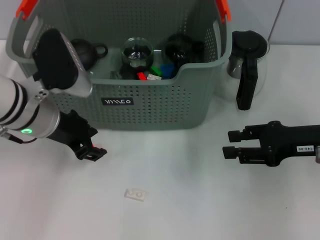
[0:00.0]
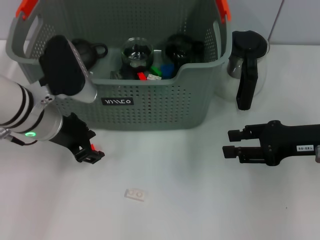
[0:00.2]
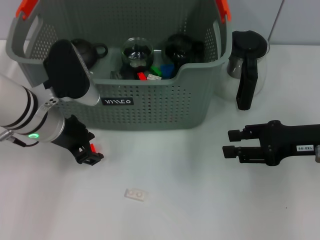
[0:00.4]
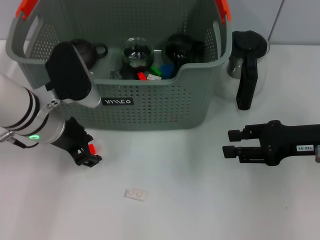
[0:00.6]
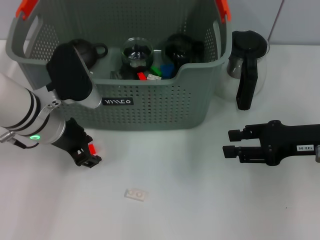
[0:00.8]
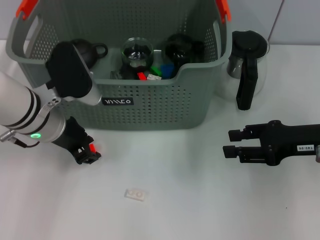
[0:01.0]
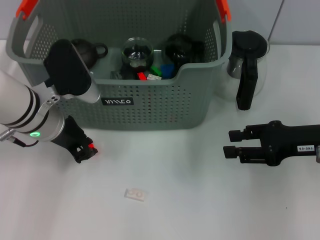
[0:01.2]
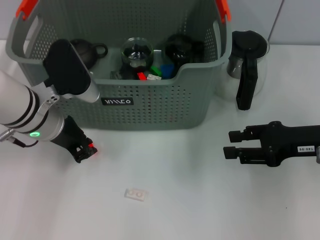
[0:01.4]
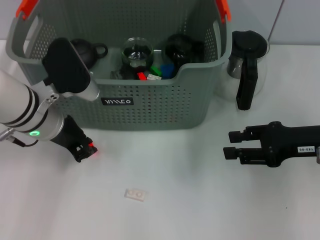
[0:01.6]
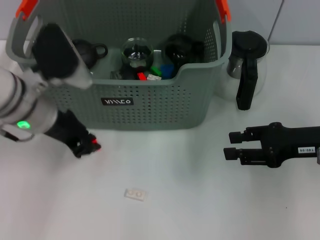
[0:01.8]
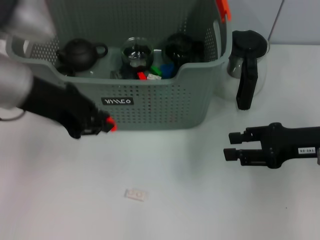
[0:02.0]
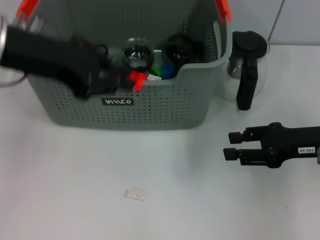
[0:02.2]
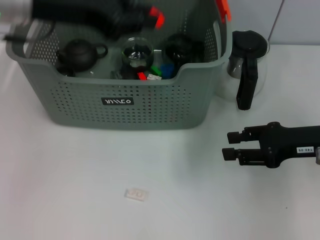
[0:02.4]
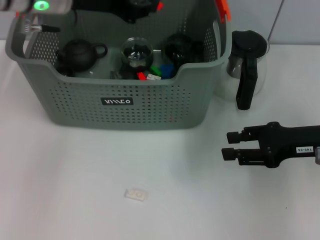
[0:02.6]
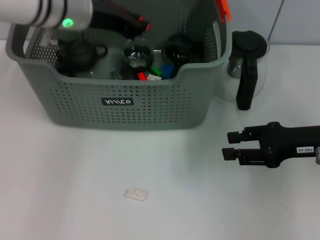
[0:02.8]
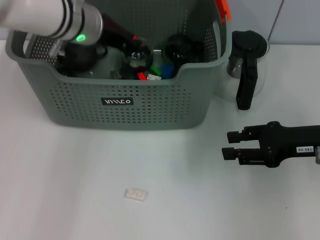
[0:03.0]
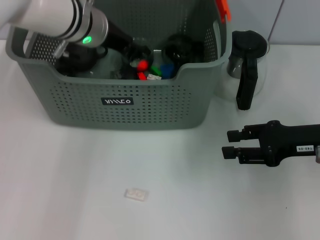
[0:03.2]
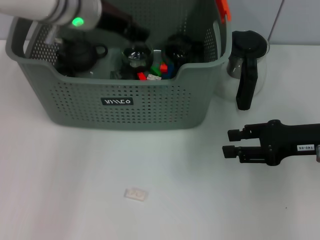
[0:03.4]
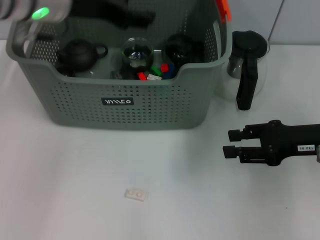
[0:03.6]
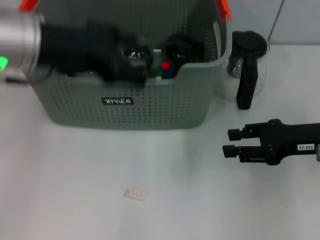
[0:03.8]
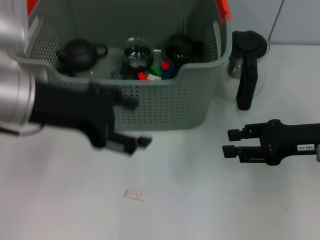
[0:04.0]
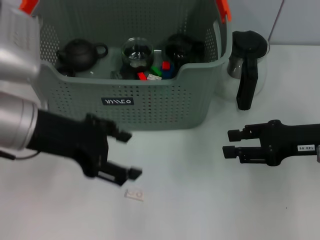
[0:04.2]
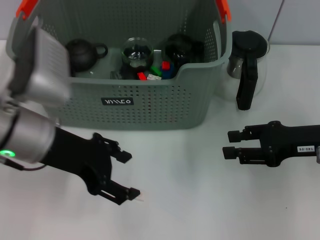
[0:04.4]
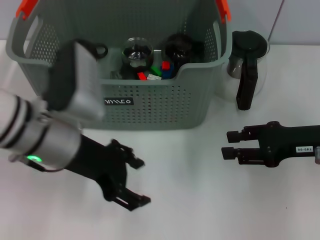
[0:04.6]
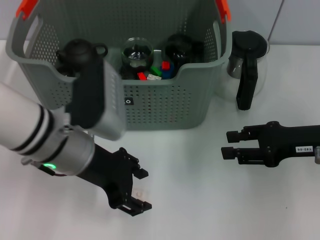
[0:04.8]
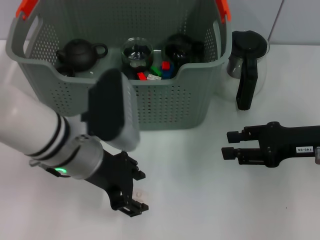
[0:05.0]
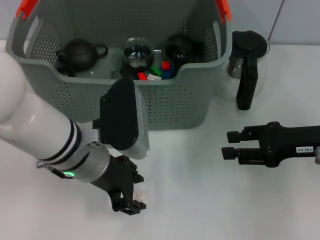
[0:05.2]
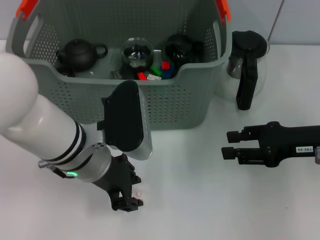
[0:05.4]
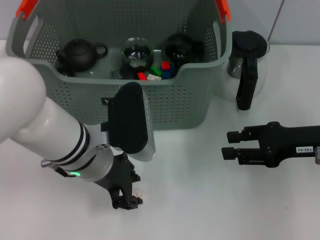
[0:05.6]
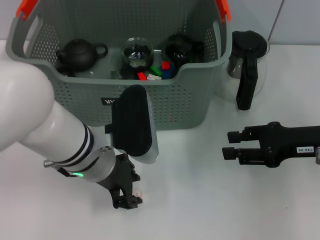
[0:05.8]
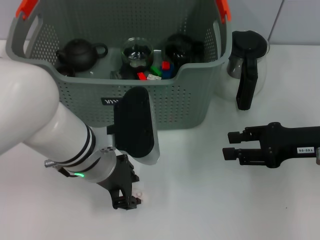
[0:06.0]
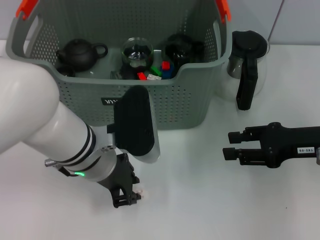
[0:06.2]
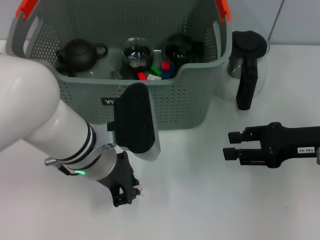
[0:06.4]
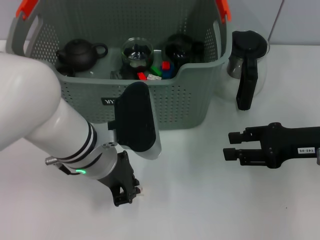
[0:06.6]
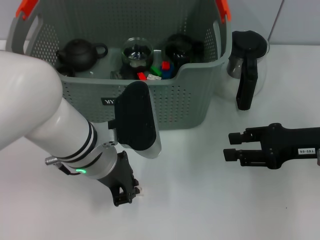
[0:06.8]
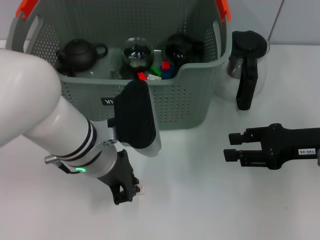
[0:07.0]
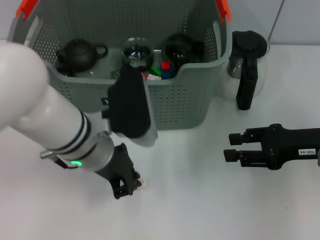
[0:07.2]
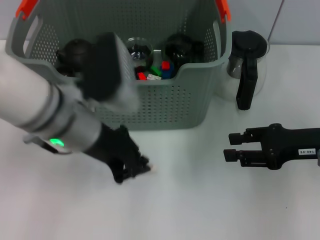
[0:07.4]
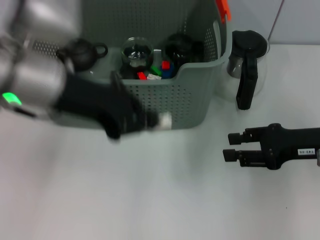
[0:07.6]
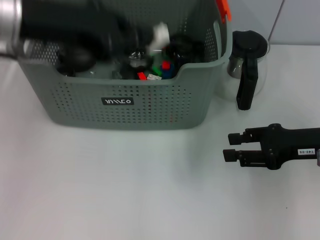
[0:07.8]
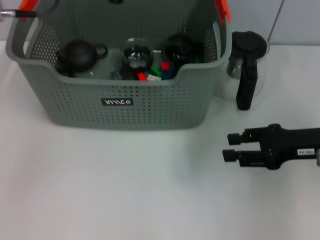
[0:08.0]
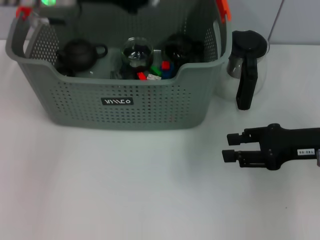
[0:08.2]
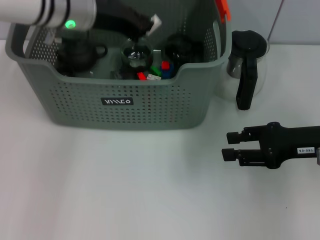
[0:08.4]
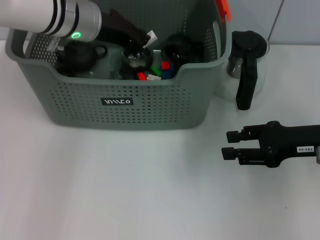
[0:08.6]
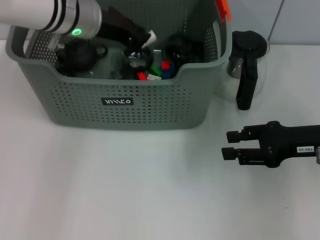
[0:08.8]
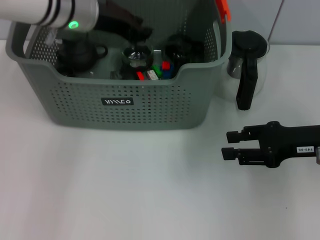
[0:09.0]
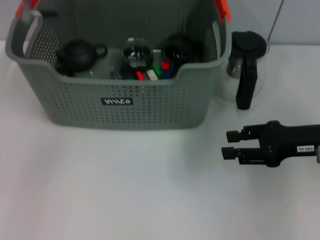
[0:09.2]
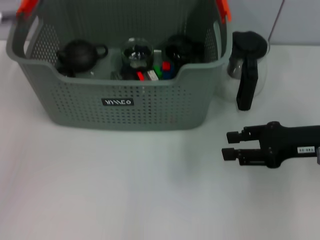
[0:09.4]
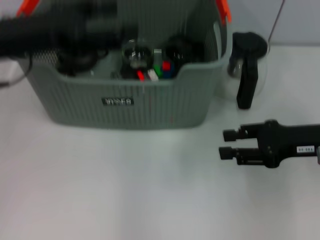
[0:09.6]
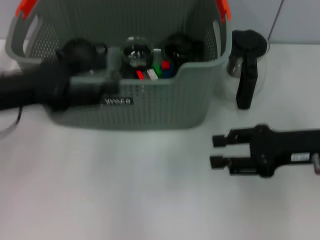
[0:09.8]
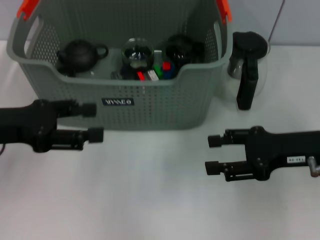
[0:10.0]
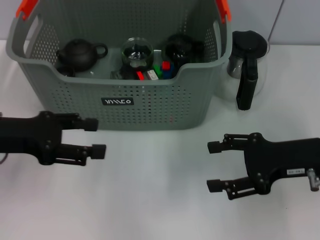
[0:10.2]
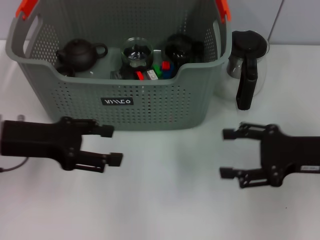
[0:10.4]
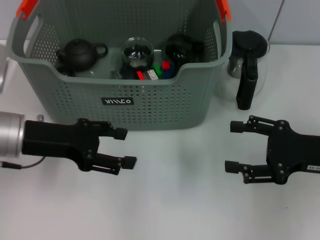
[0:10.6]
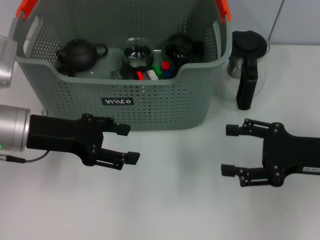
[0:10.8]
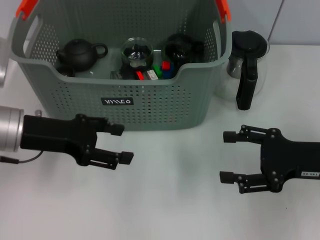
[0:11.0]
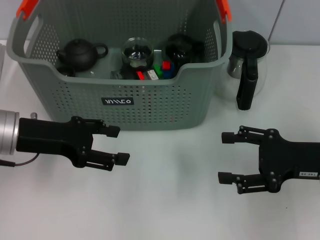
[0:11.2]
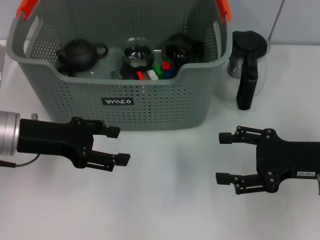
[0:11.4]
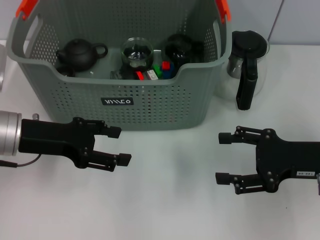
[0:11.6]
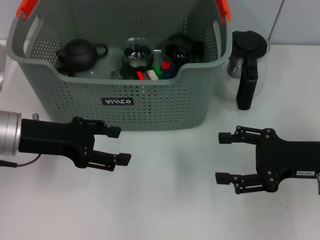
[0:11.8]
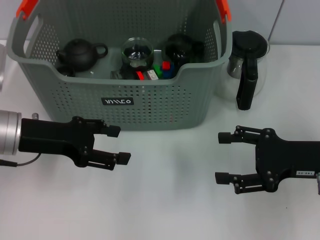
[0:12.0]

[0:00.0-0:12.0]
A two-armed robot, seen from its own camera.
Task of the whole recording: pick up the teacup on the table and place it into the storage bin, pick up the block on the table and place it into the storage bin.
Step, 0:00.0 to 0:01.8: Grasp the orange block with left gripper.
Step, 0:02.0 to 0:03.6: Place the orange block in the storage box with left gripper.
Step, 0:03.8 to 0:07.2: Grasp the white block with left gripper.
Step, 0:07.6 to 0:09.0: Place the white block in the storage box with left gripper.
0:00.0 to 0:01.6: The left gripper closes.
0:01.6 to 0:03.0: The left gripper goes some 10 cm forward and upward.
0:03.0 to 0:04.4: The left gripper travels backward by roughly 15 cm, and opens up.
0:04.4 to 0:06.0: The left gripper is displaced to the right and downward by approximately 10 cm, and closes.
0:06.0 to 0:07.6: The left gripper is displaced upward and to the left by some 10 cm, and closes its fingers.
0:07.6 to 0:09.0: The left gripper travels forward by approximately 15 cm.
0:09.0 to 0:10.4: The left gripper is displaced backward, to the left and downward by approximately 20 cm, and opens.
0:10.4 to 0:12.0: The grippers move only a little.

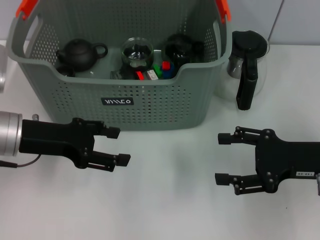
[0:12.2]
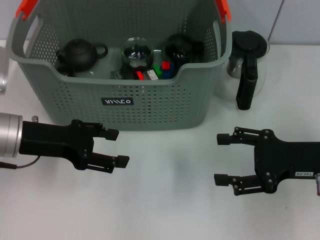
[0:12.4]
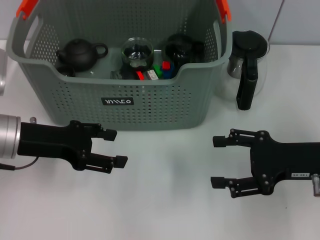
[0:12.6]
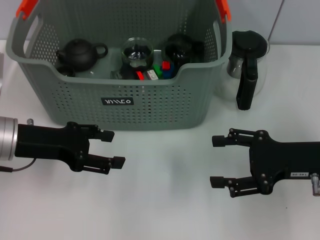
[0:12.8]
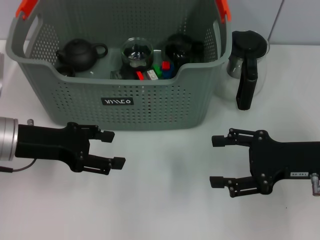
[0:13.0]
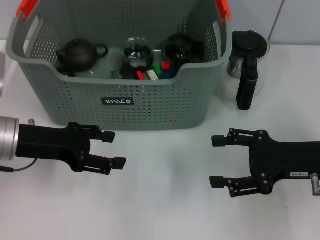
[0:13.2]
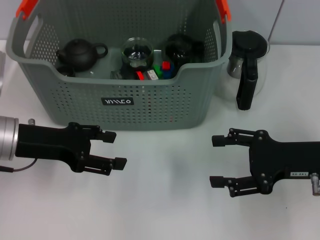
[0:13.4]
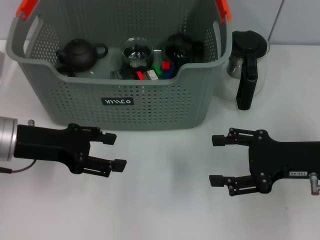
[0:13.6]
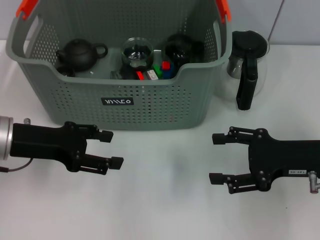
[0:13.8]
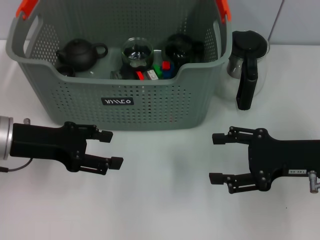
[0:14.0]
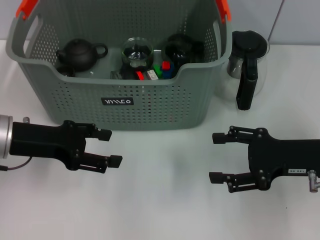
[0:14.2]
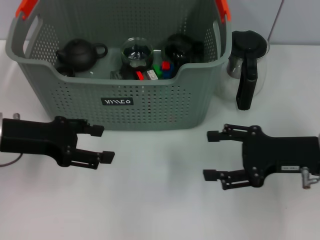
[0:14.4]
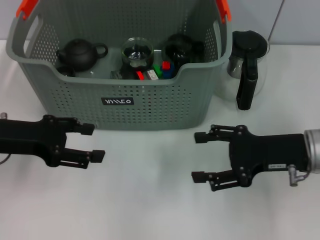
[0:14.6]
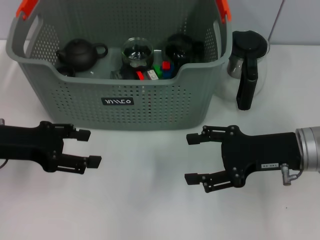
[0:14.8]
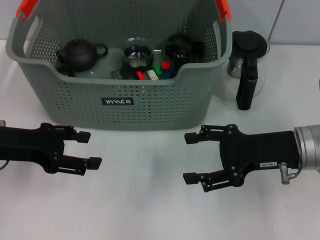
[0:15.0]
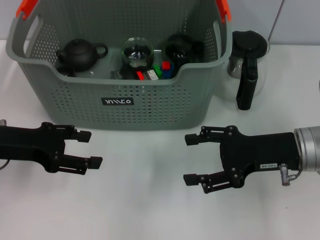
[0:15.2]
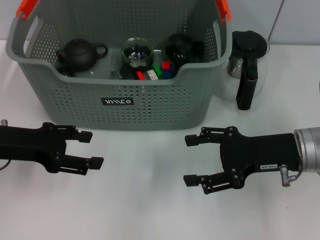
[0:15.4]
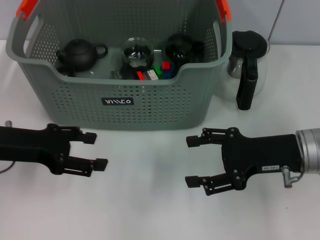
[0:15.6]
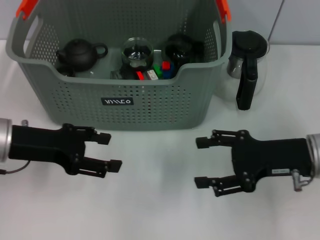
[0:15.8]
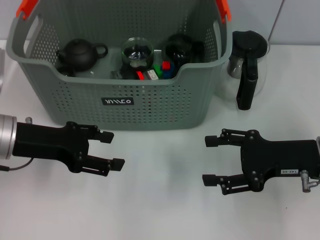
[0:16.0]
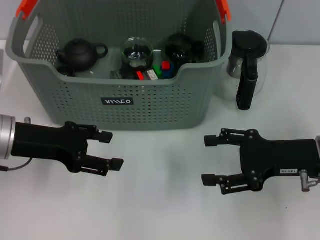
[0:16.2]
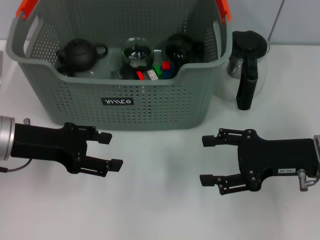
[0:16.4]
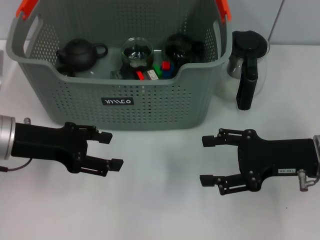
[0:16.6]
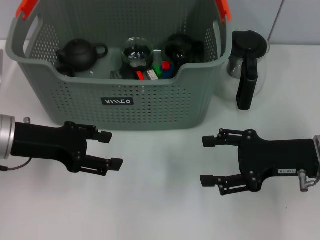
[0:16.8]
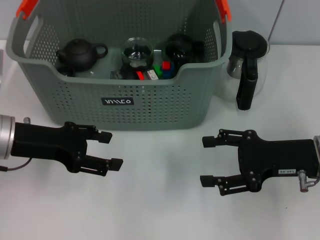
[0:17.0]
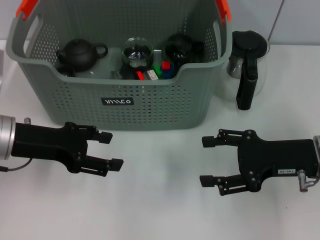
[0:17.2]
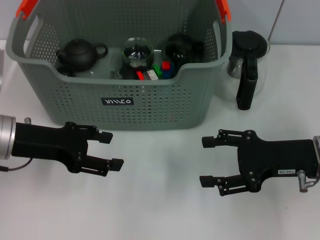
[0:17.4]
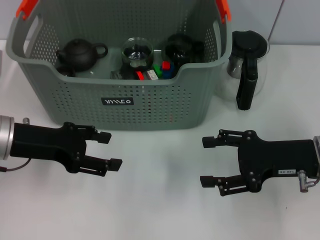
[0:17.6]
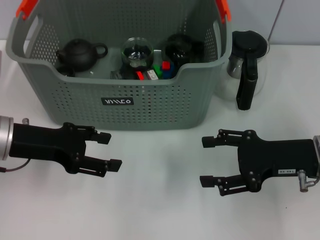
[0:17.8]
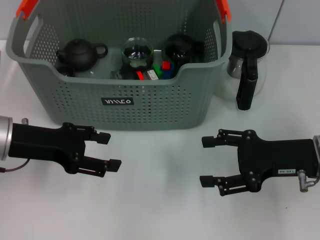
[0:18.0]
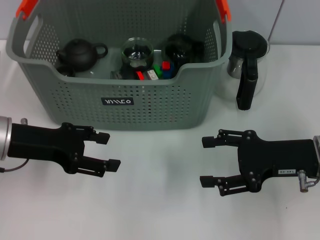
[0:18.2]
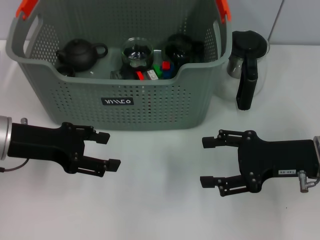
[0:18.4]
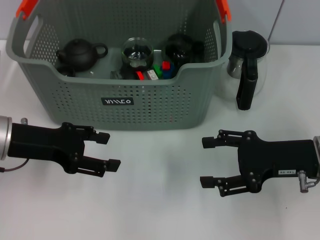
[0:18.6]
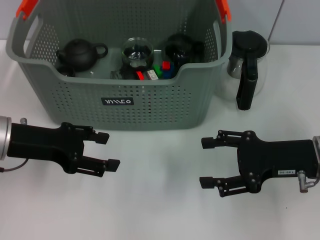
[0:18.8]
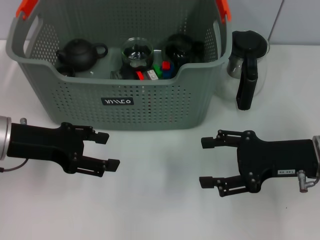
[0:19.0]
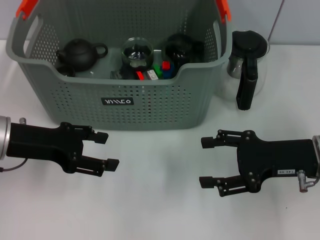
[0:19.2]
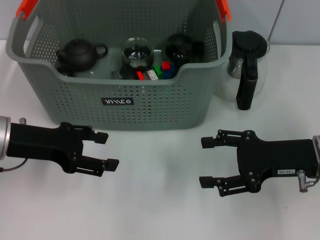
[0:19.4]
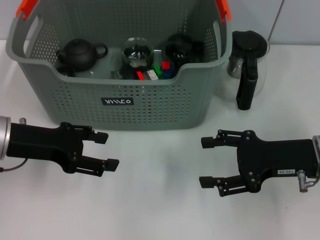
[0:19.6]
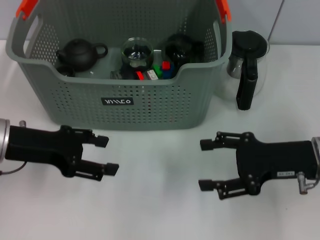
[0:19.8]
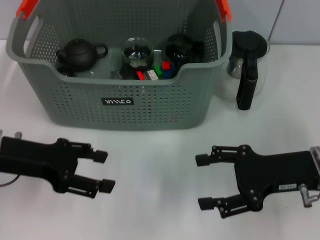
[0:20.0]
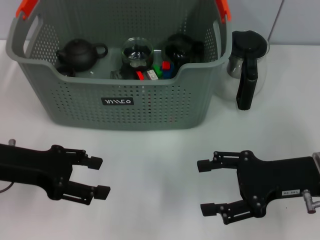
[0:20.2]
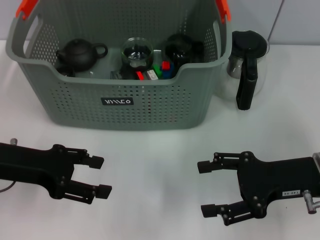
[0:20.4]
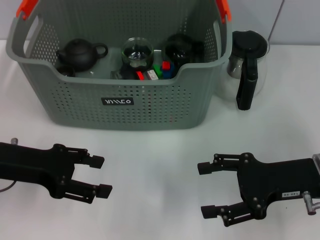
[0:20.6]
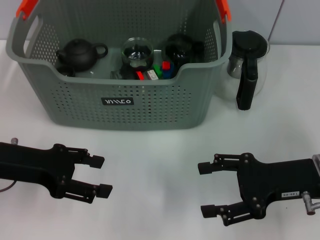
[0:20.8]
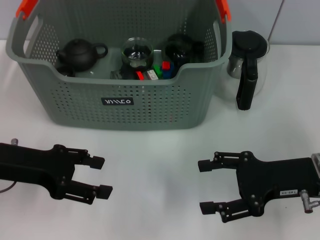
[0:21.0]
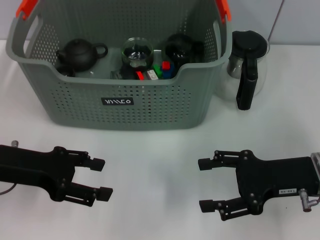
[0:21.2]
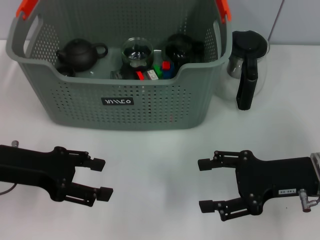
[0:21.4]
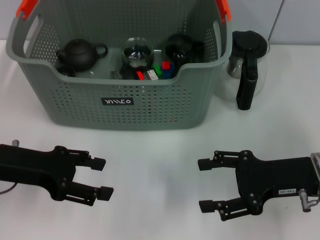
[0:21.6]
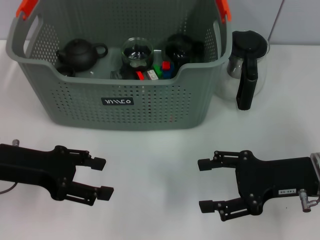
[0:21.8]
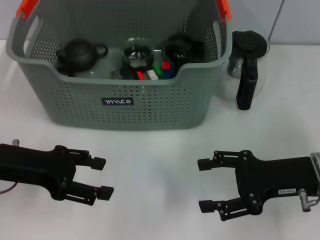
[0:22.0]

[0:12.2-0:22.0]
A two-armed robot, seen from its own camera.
Task of the whole recording: pick up the teacup on the table and place it into the storage bin, pick up the block on the table and place it into the storage bin.
0:12.2 to 0:13.6: The two grippers keep their place.
0:13.6 to 0:16.4: There are only small adjustments of the grippers.
0:16.4 to 0:19.2: Neither gripper changes place.
0:19.2 to 0:20.6: The grippers stay close to where they were, moving slightly.
0:20.6 to 0:22.0: Neither gripper changes place.
